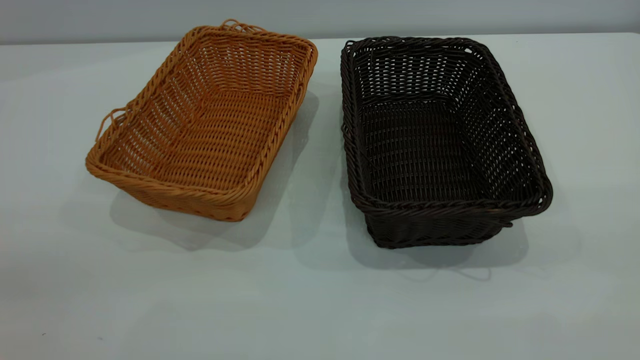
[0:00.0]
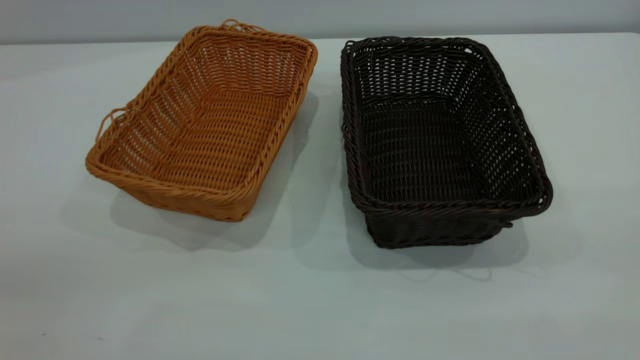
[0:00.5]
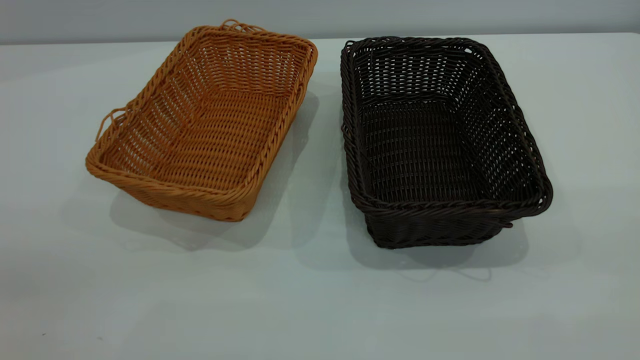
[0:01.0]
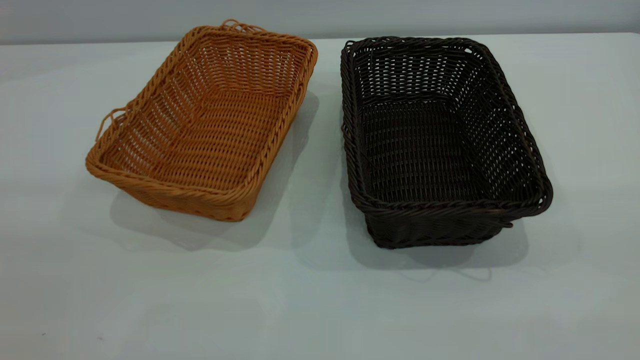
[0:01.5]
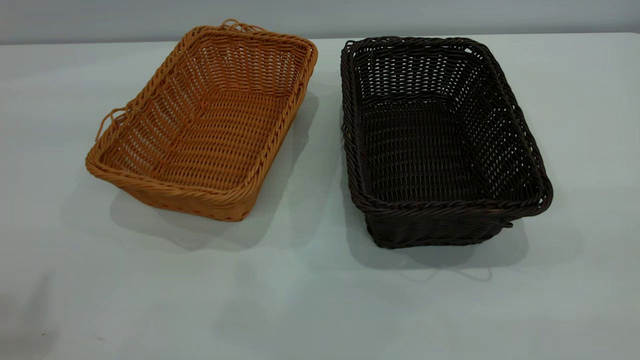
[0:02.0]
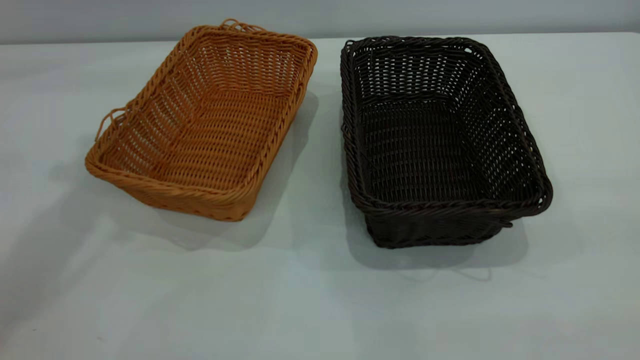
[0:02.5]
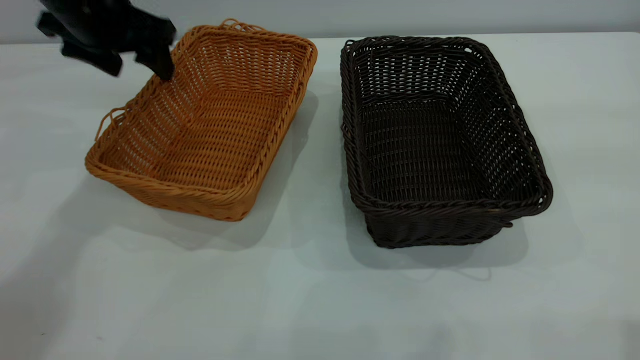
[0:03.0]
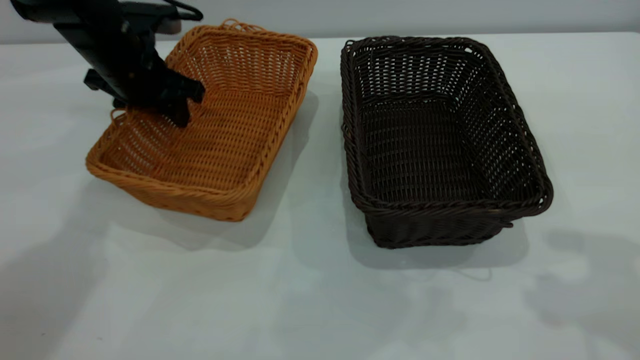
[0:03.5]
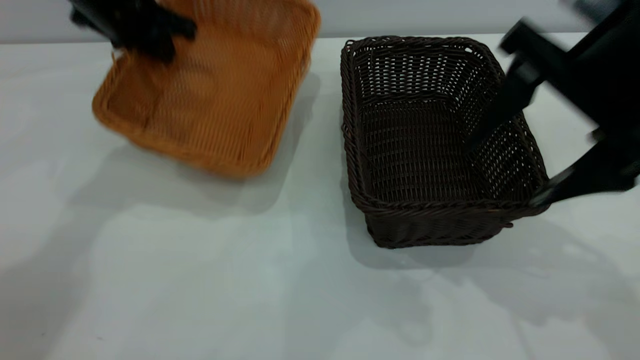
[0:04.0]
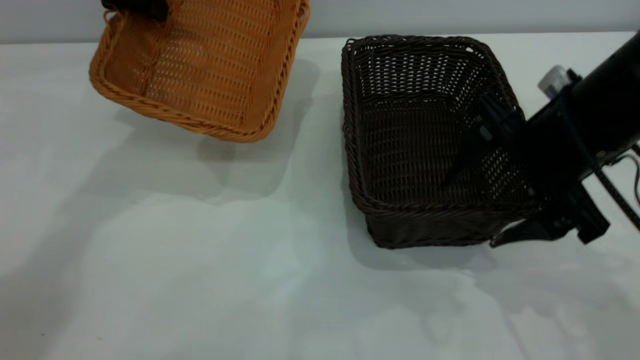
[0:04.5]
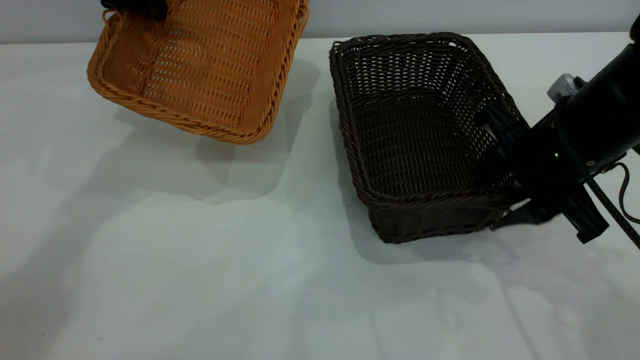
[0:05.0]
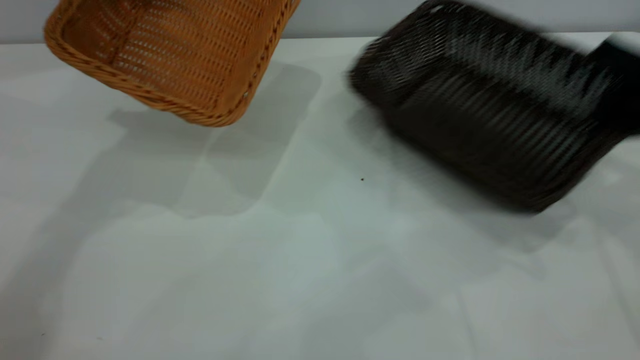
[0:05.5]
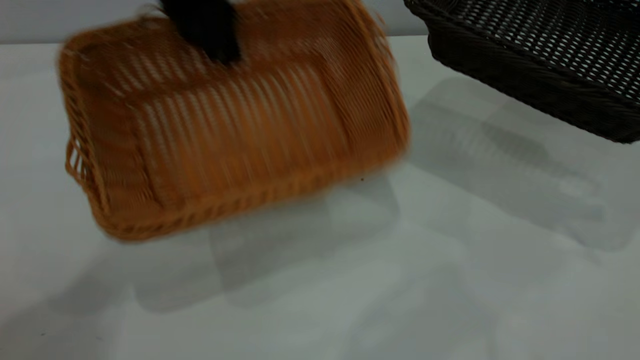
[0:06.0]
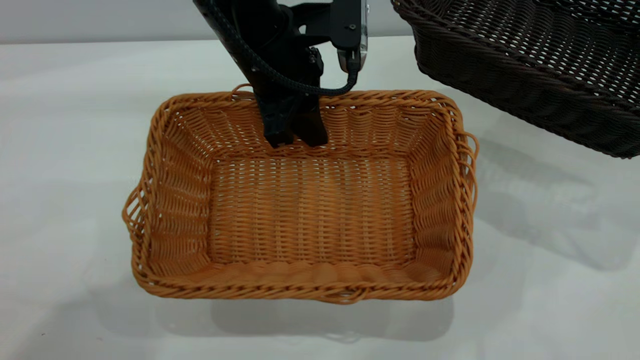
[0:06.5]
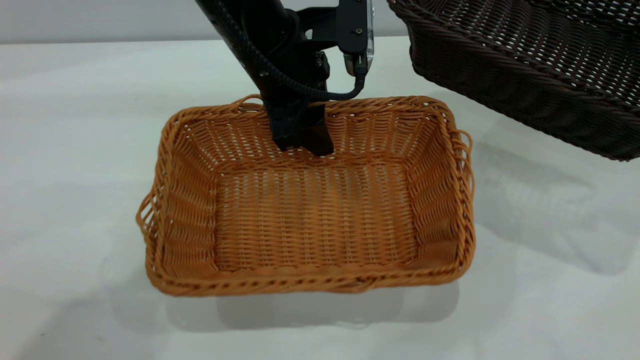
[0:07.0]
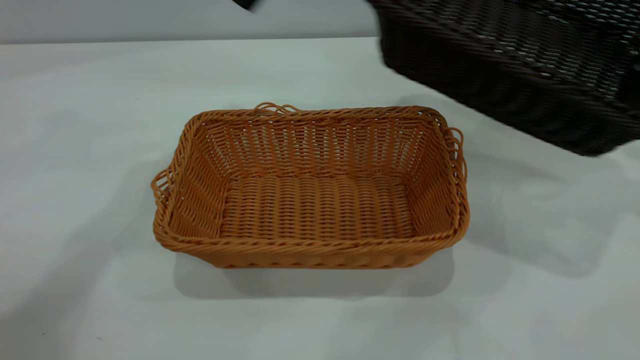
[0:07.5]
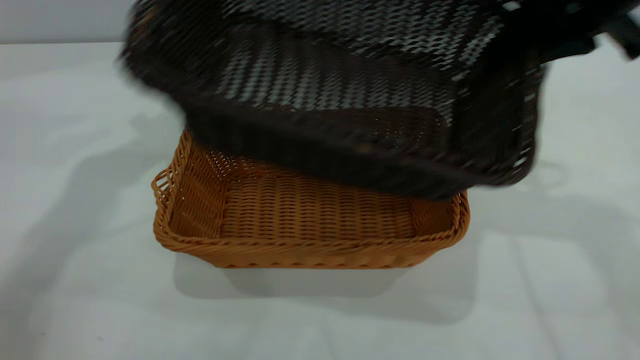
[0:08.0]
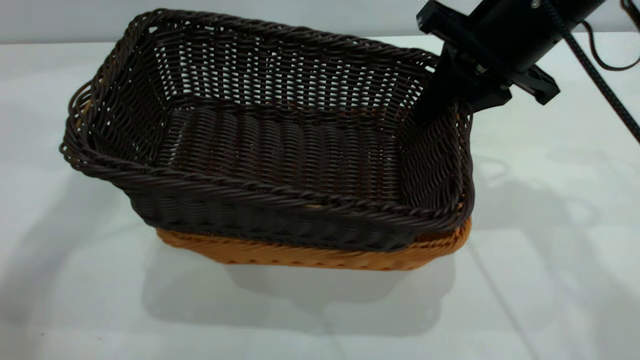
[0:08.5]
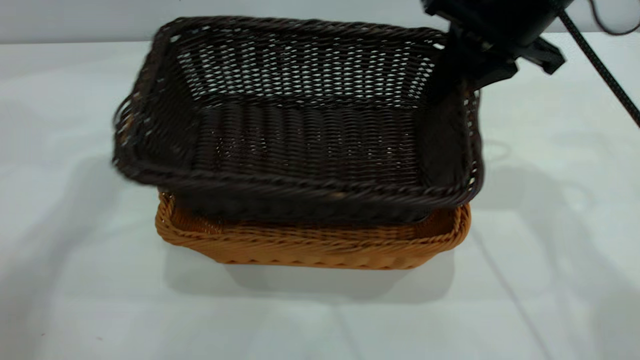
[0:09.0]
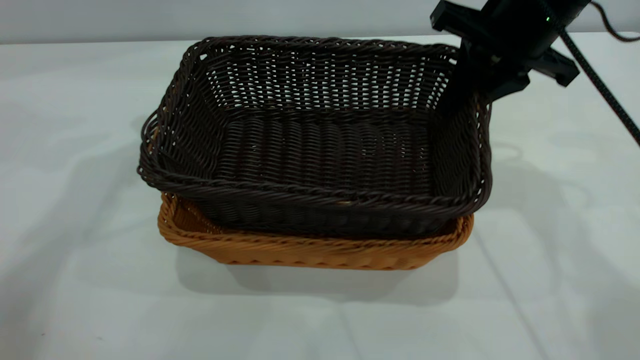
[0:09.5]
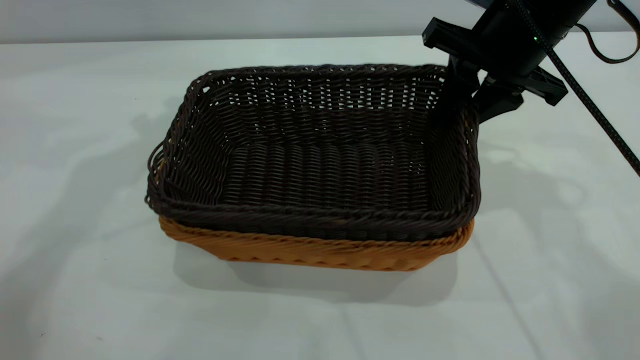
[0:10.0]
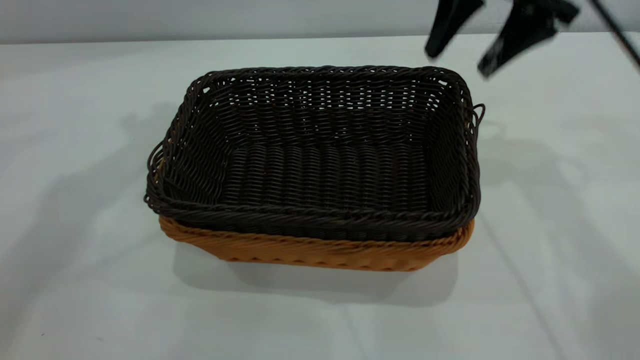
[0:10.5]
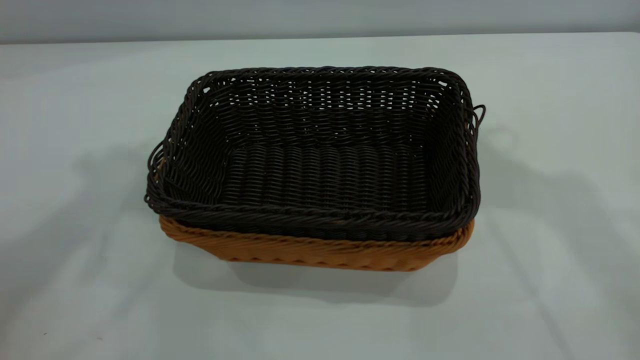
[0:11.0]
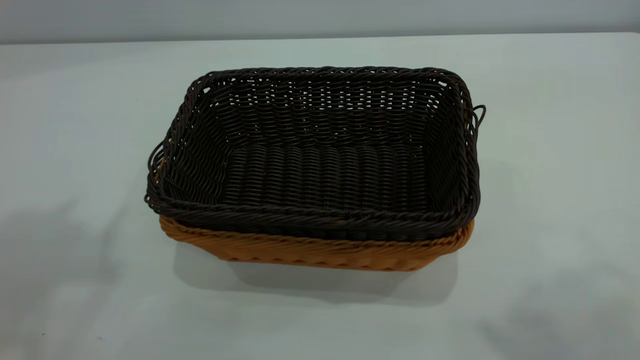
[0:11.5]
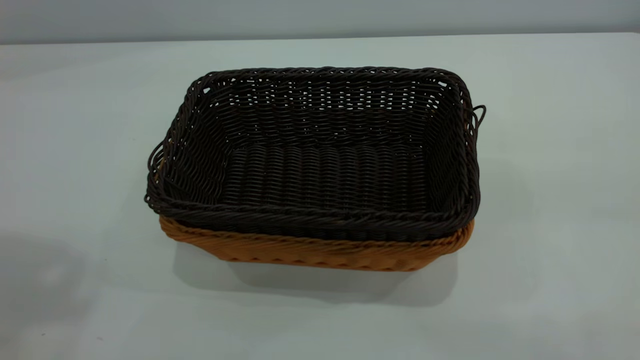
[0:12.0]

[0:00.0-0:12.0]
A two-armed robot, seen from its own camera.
Task of the whole recording: the left gripper grasp the brown basket and place it in the center of the table, the right gripper grasp the black basket and place it inside the brown one.
Step, 0:00.0 to 0:05.0: Pick up the light basket with the right gripper.
Step, 0:06.0 to 0:07.0: Place the light-colored basket in the center.
Step, 0:07.5 to 0:10.0: Place the dark basket on top of the light basket.
0:02.0 to 0:04.0: Both grippers move forward and downward, about 35 cm. The left gripper closes its fingers.
0:04.0 to 0:06.0: The right gripper is displaced to the right by about 20 cm, and closes up. Meanwhile the left gripper heads to the right and backward, covering about 15 cm.
0:06.0 to 0:08.0: The right gripper moves to the left, approximately 20 cm; the left gripper is displaced to the left and upward by some 10 cm, and opens up.
0:08.0 to 0:10.0: The right gripper goes some 5 cm downward, and opens.
0:10.0 to 0:12.0: The right gripper heads backward and upward, covering some 40 cm, and opens its fingers; the left gripper travels upward and backward by roughly 35 cm.

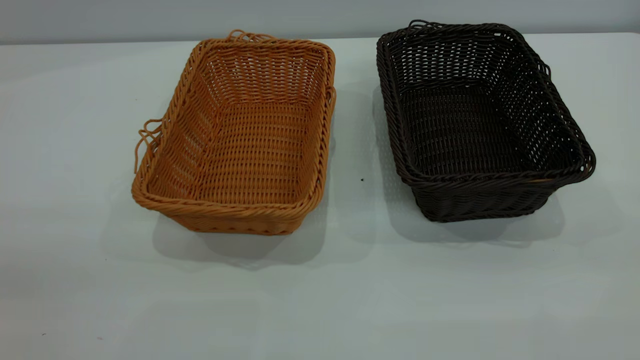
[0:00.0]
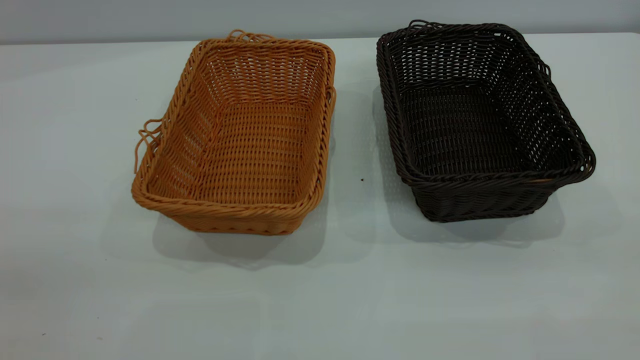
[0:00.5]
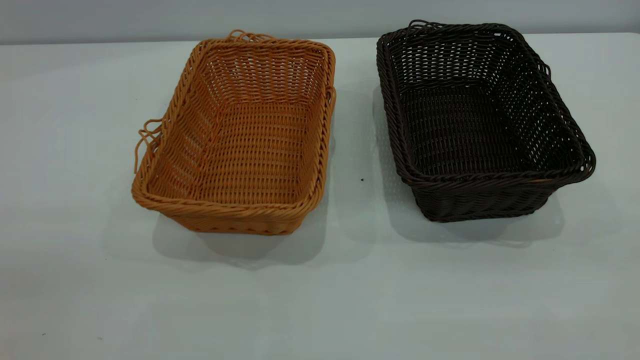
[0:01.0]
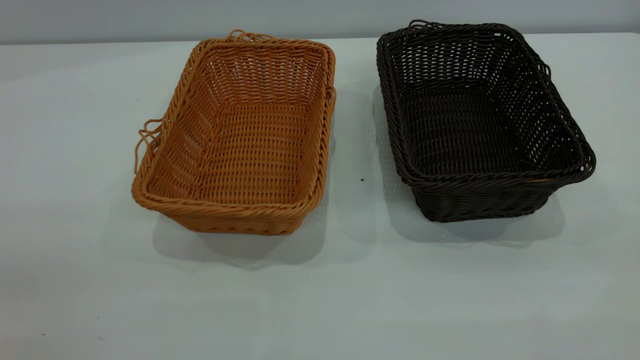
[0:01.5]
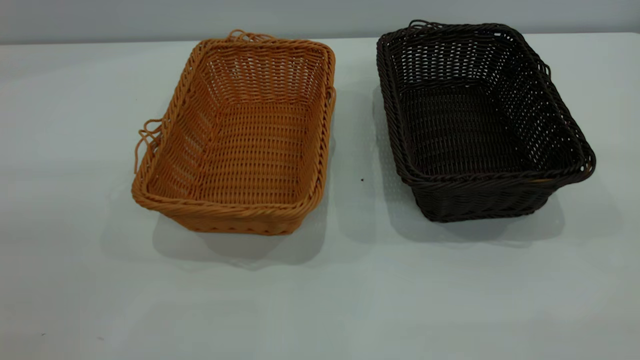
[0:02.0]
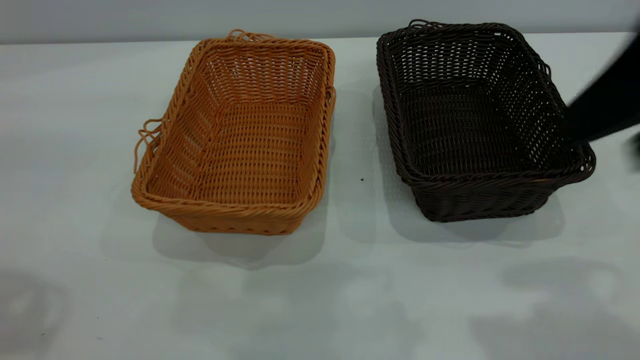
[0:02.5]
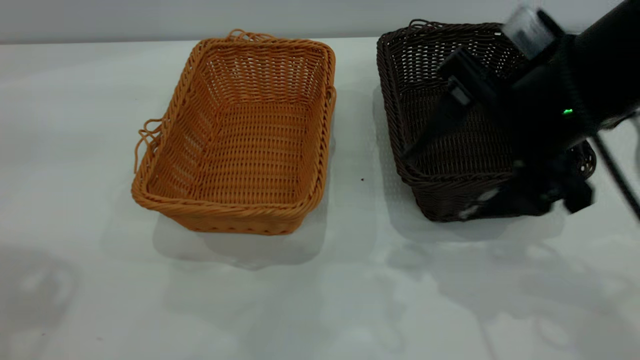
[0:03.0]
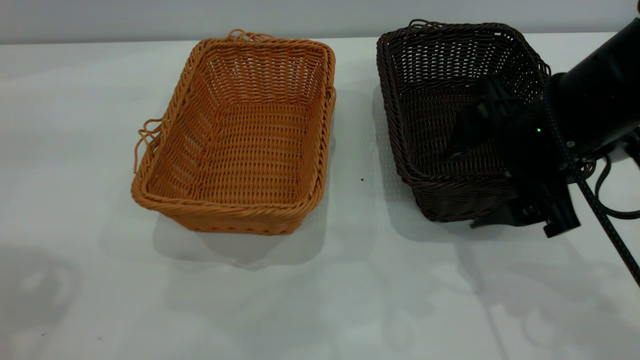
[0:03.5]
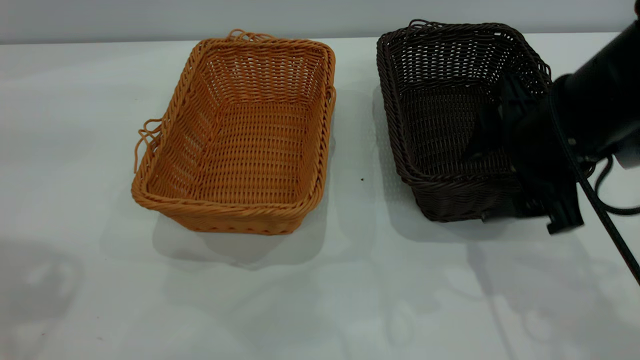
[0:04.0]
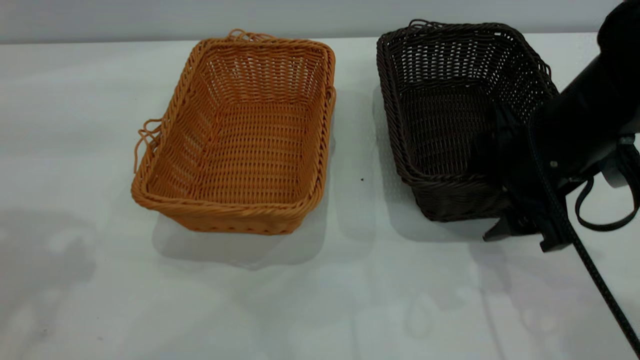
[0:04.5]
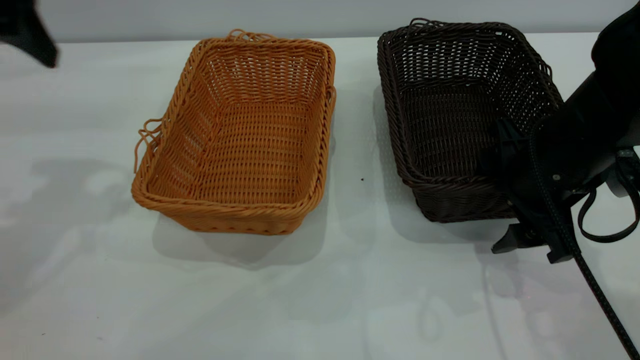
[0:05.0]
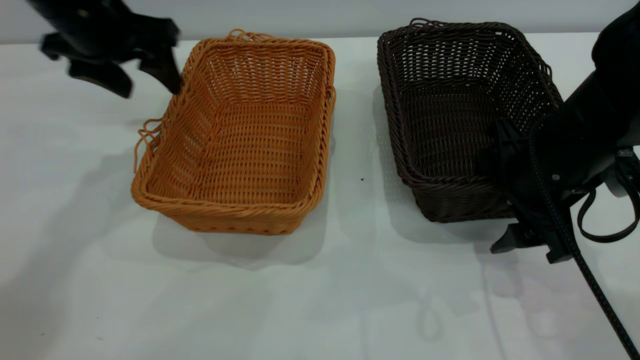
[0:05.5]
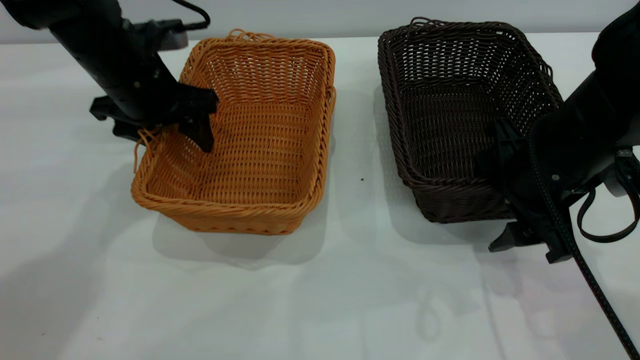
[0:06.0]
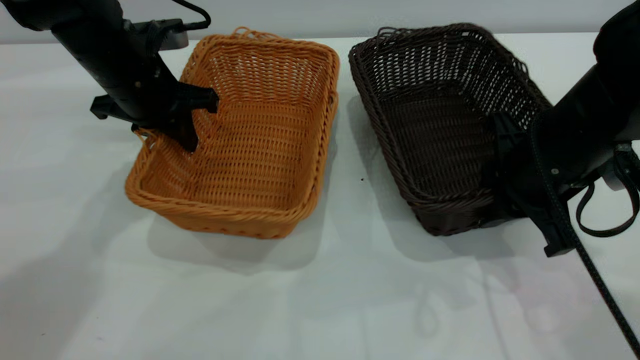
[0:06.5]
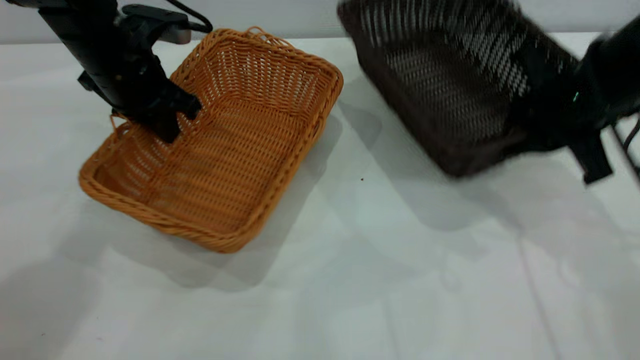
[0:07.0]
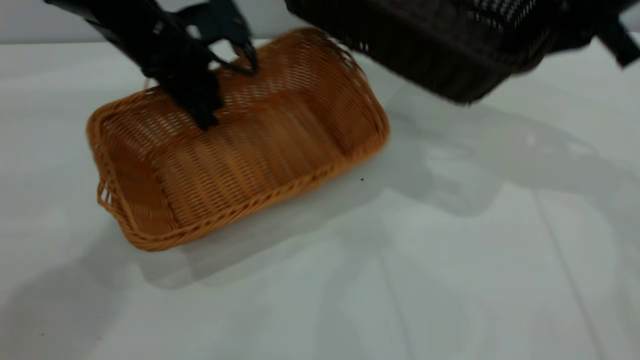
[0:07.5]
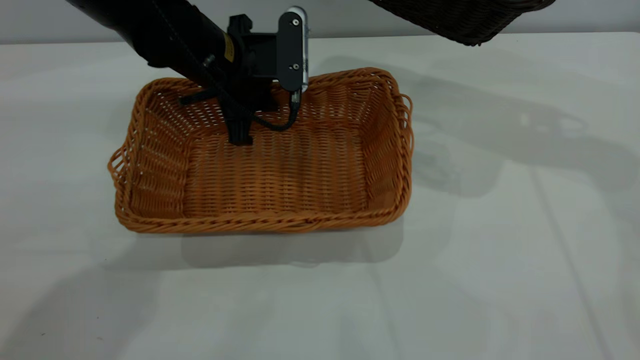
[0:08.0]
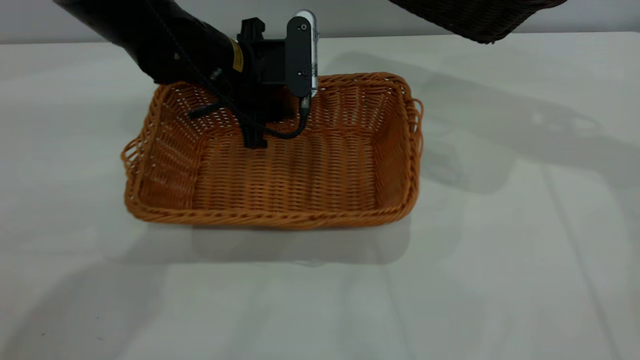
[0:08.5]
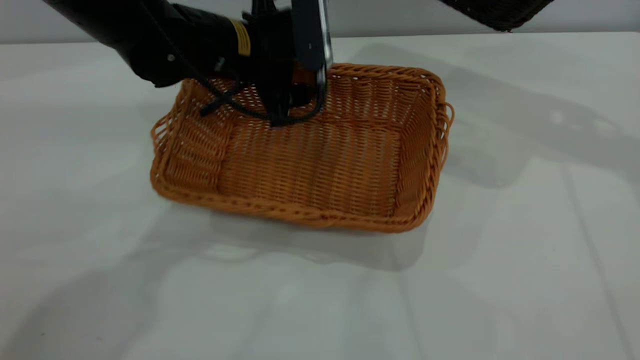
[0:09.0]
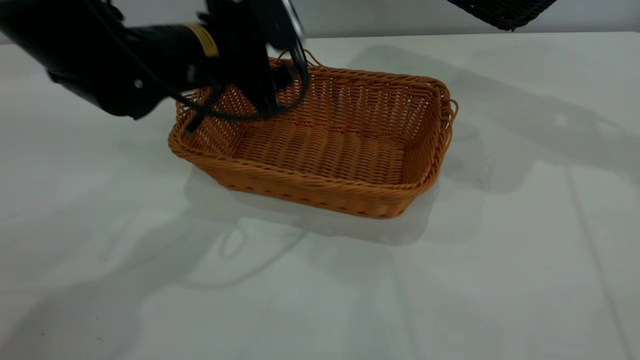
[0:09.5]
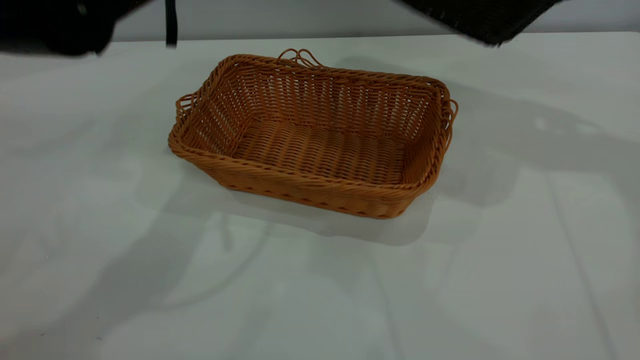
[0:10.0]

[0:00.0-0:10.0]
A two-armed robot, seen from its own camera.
Task of the whole recording: the left gripper grasp the brown basket and place it in the center of the table, the right gripper grasp the black basket and place it inside the brown one.
Step, 0:00.0 to 0:07.0: Pick up the light basket with the right gripper.
Step, 0:07.5 to 0:09.0: Place the light-colored basket in the center.
0:02.0 to 0:04.0: The right gripper moves forward, downward and to the left, about 30 cm.
0:04.0 to 0:06.0: The left gripper heads downward, forward and to the right, covering roughly 30 cm.
0:06.0 to 0:08.0: The right gripper shifts some 25 cm upward, forward and to the right, and closes, while the left gripper moves to the right, some 10 cm, and closes up.
0:08.0 to 0:10.0: The left gripper moves upward, roughly 15 cm, and opens up.
